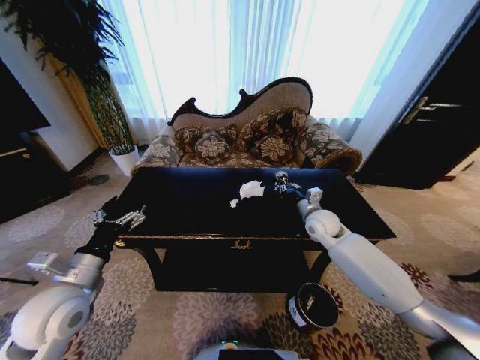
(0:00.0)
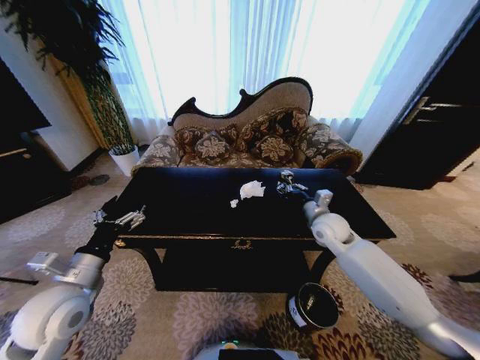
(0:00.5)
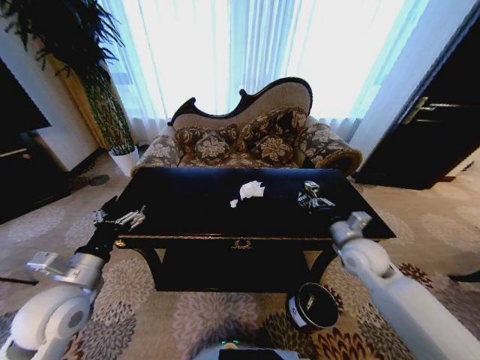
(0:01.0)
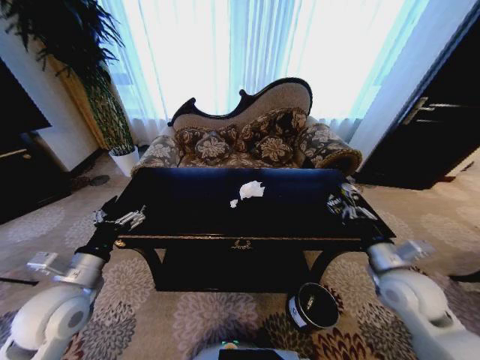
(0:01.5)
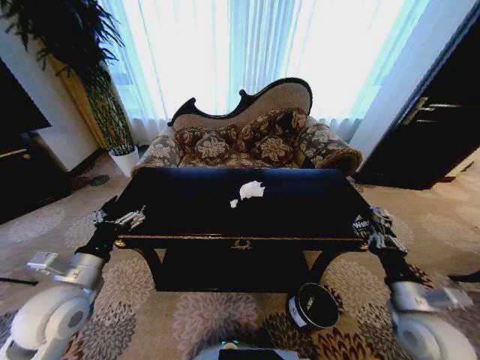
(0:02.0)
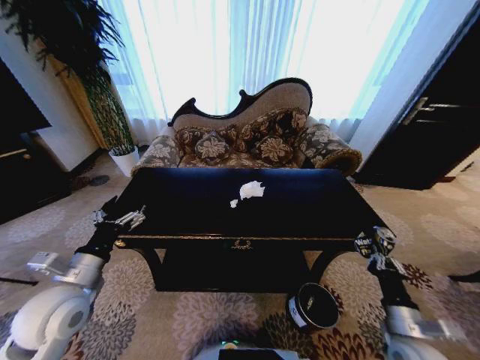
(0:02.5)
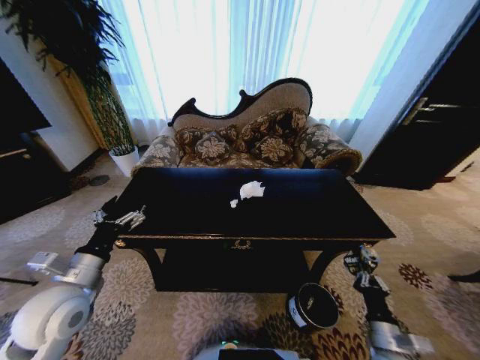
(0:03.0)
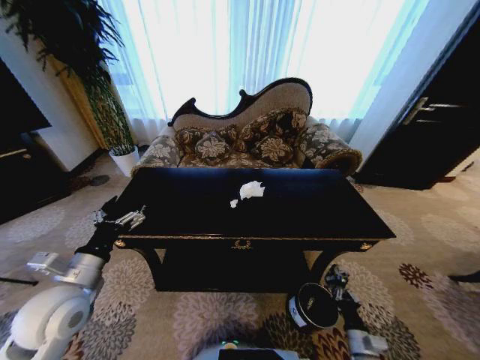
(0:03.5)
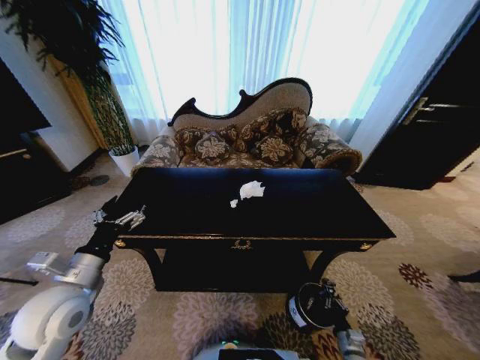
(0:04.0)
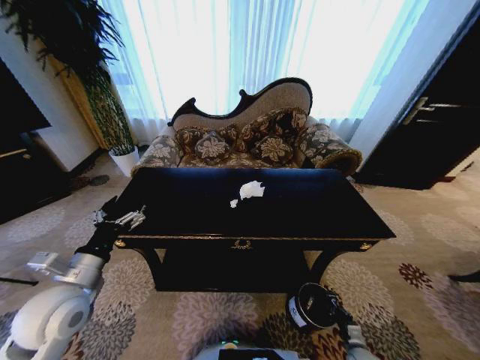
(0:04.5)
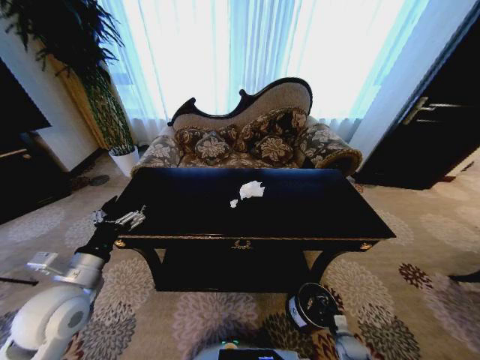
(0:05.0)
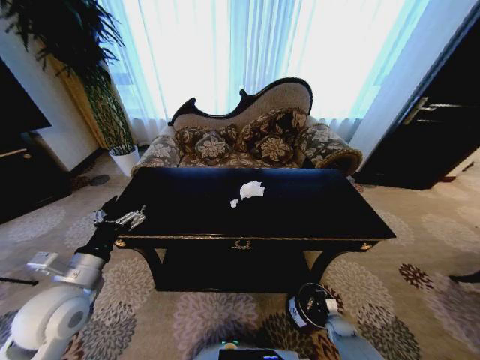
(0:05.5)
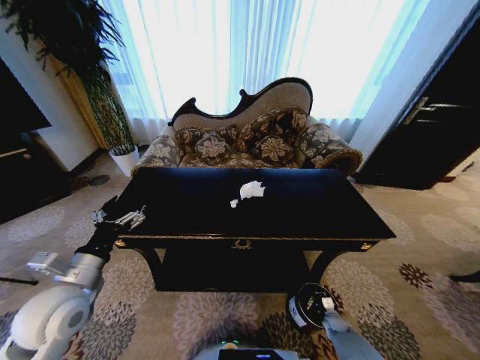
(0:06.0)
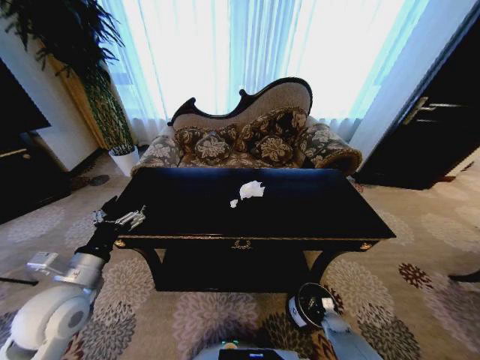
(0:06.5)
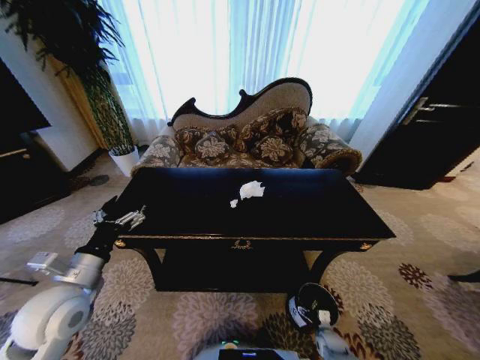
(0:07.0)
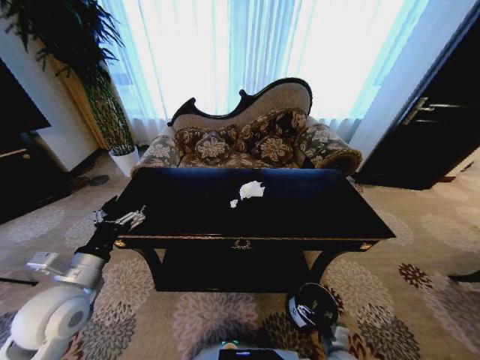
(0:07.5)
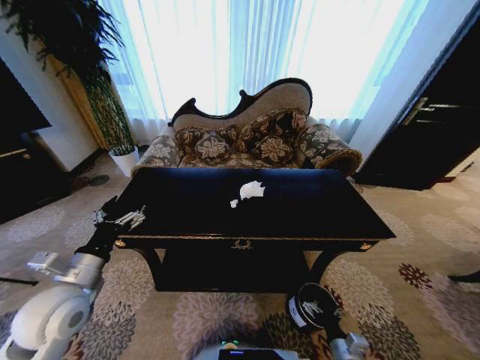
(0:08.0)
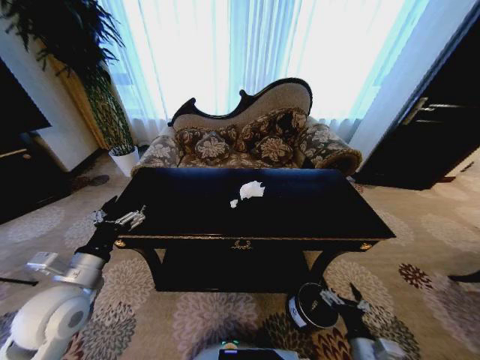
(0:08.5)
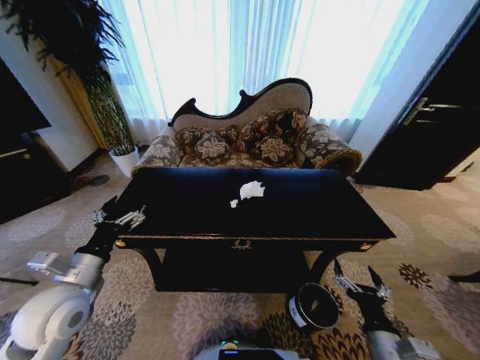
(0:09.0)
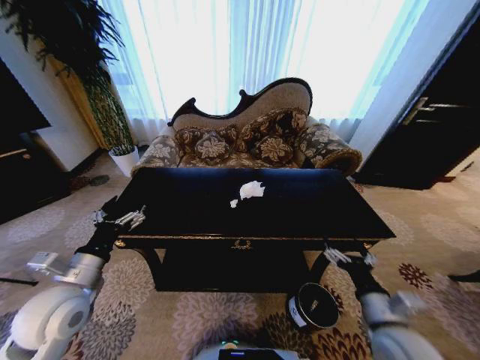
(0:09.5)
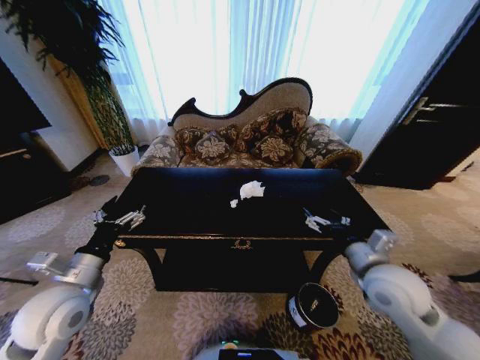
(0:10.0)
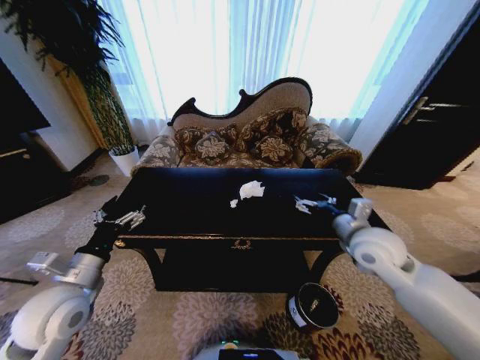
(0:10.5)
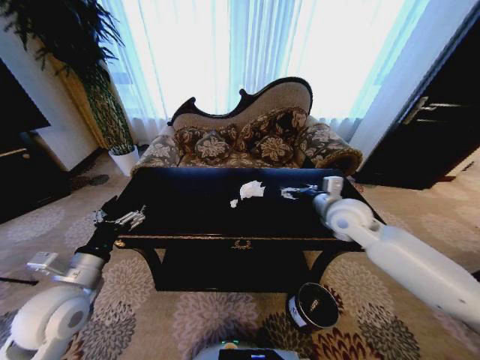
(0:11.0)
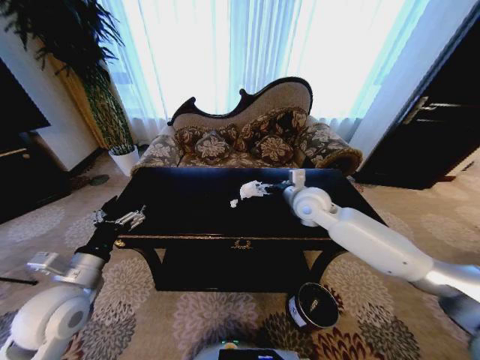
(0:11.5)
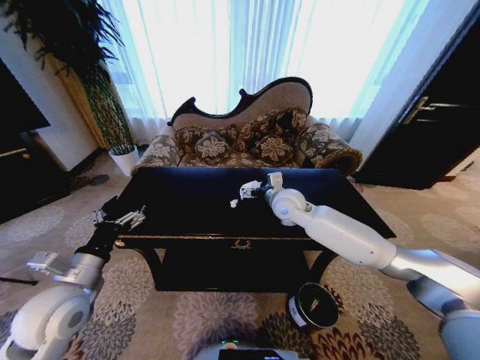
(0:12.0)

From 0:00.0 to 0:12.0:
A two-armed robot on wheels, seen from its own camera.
Task of the whole recording: Move to the front of the table and place the trash on the table into the trash bin.
From 0:00.0 to 0:02.0: The right gripper shifts roughly 30 cm backward.
From 0:02.0 to 0:04.0: The right gripper travels downward by about 30 cm.
From 0:04.0 to 0:06.0: The right gripper travels forward and downward by roughly 15 cm.
From 0:06.0 to 0:08.0: The right gripper is displaced upward, backward and to the left by about 25 cm, and opens up.
From 0:08.0 to 0:10.0: The right gripper goes some 30 cm upward and forward.
From 0:10.0 to 0:12.0: The right gripper travels forward and to the left by about 25 cm.

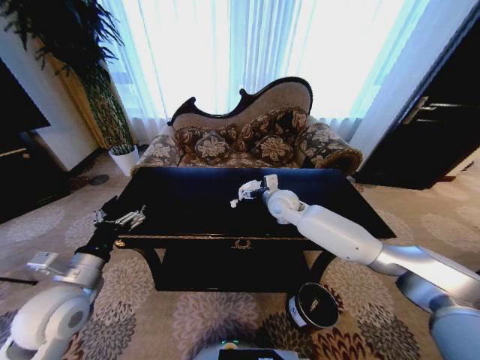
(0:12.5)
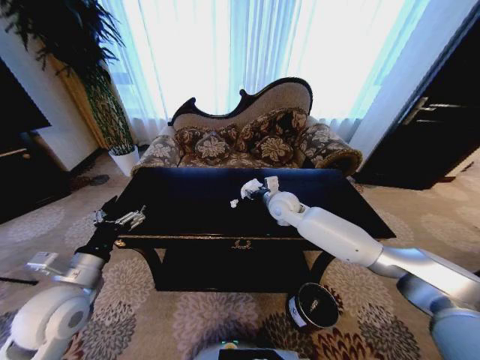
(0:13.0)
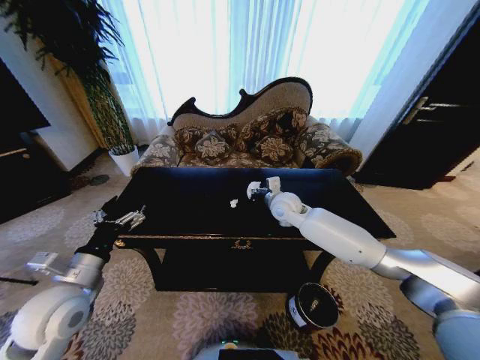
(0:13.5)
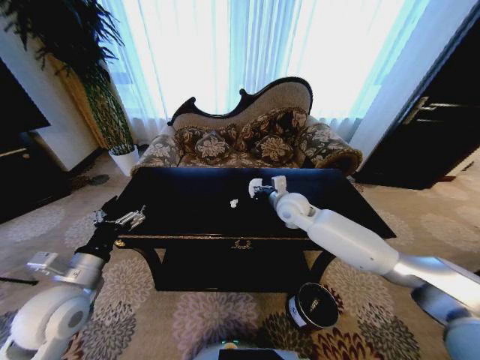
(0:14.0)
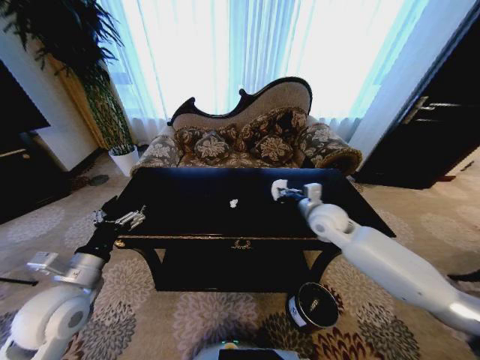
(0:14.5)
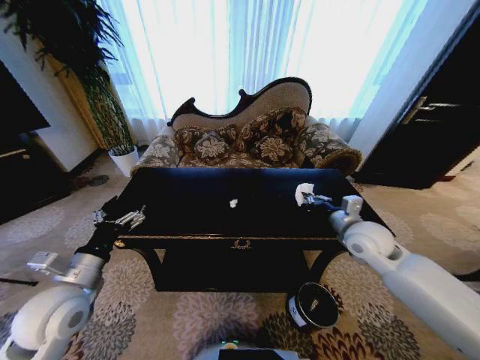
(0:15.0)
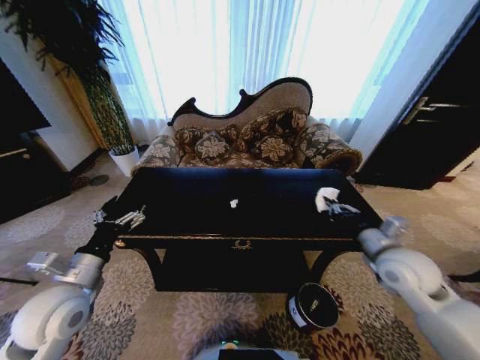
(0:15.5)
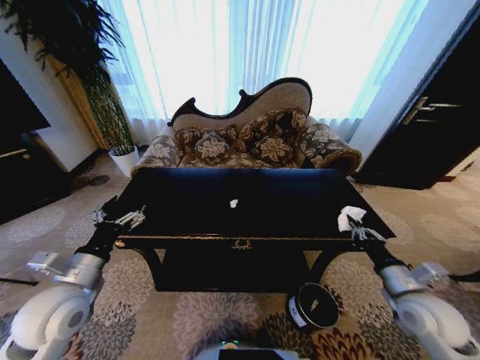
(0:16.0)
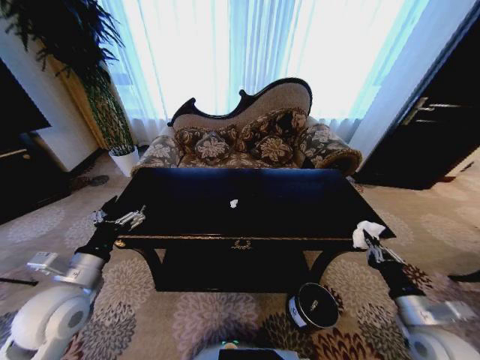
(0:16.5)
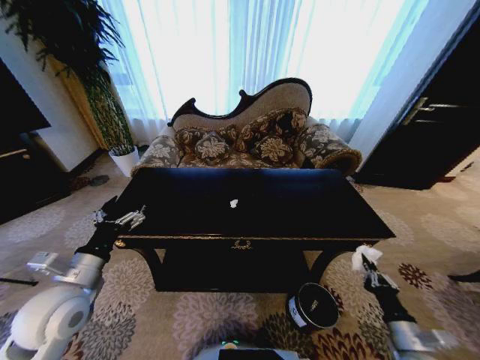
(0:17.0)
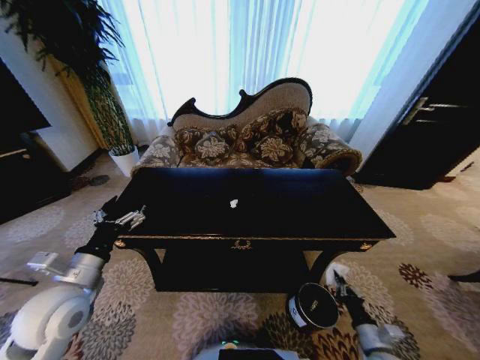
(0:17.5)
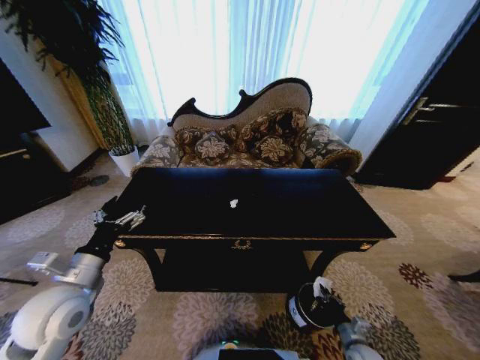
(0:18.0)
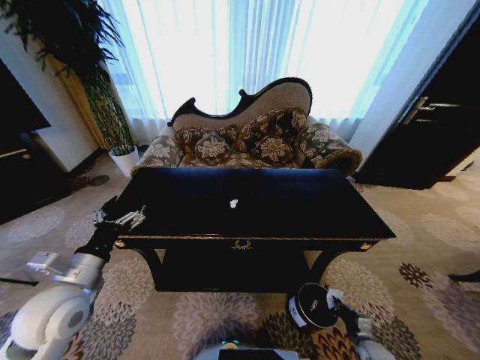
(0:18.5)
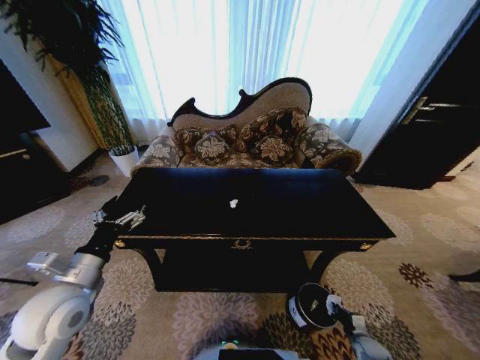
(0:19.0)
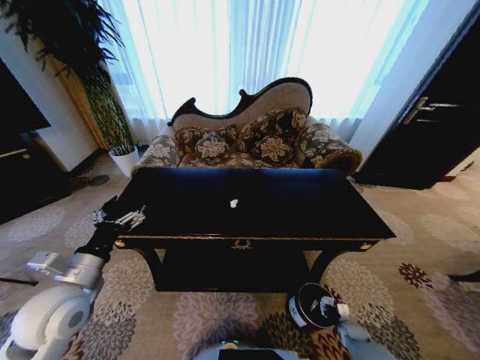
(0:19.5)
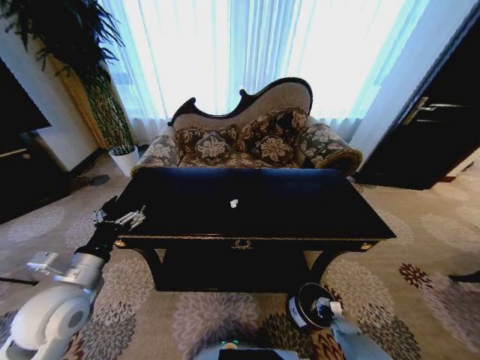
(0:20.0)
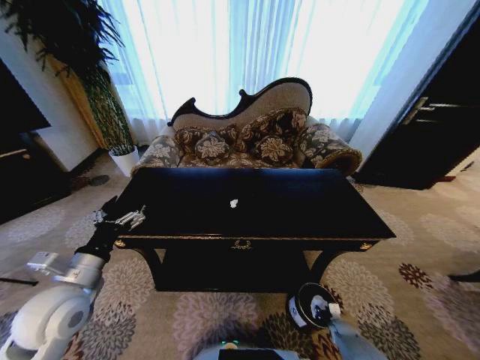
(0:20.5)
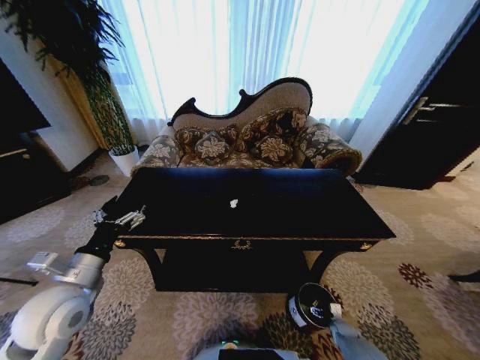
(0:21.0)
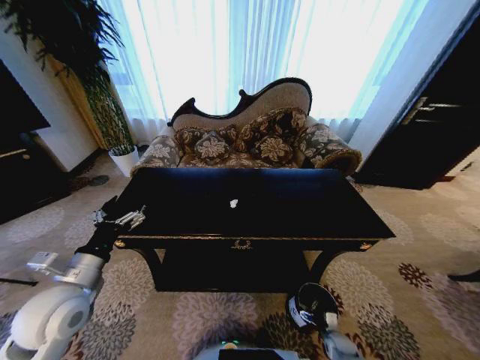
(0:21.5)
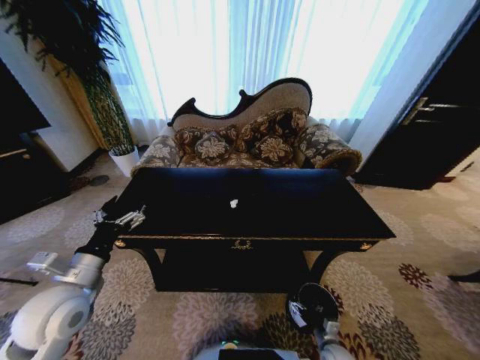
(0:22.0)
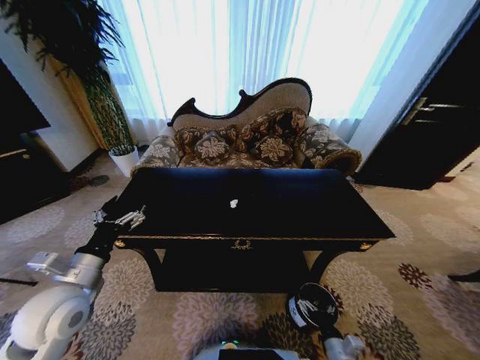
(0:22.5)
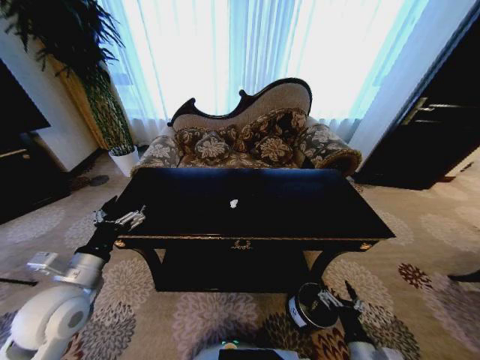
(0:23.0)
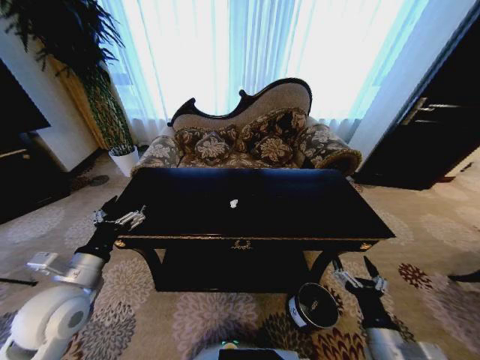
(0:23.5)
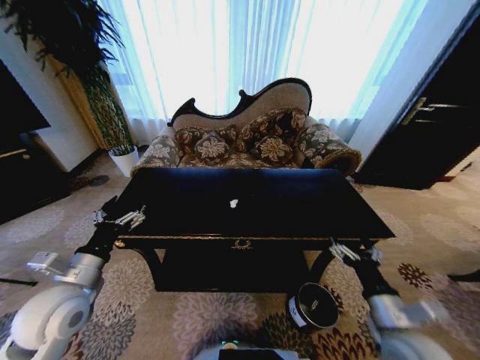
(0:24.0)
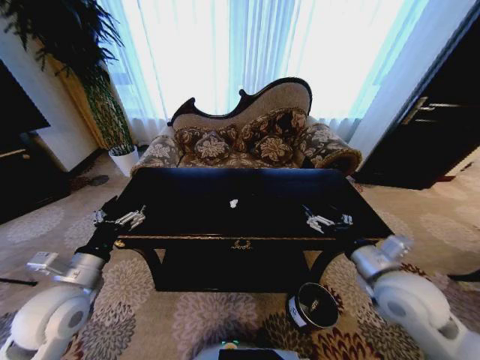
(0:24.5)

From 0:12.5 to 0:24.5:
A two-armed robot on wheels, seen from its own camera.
Task of the whole recording: Move to the front of the table and place the trash on the table into the trash bin.
From 0:12.5 to 0:14.5: The right gripper shifts about 15 cm to the right and backward, and closes.
From 0:14.5 to 0:16.5: The right gripper goes roughly 35 cm backward, to the right and downward.
From 0:16.5 to 0:18.5: The right gripper is displaced downward by some 25 cm.
From 0:18.5 to 0:20.5: The right gripper travels downward and forward by about 10 cm, and opens up.
From 0:20.5 to 0:22.5: The right gripper moves upward, backward and to the left, roughly 25 cm, and opens.
From 0:22.5 to 0:24.5: The right gripper travels upward and forward by approximately 35 cm.

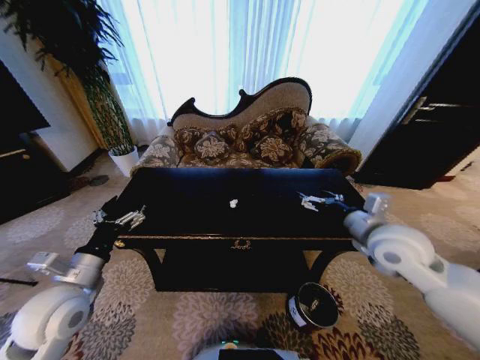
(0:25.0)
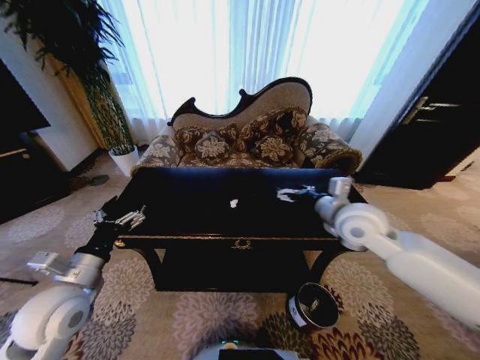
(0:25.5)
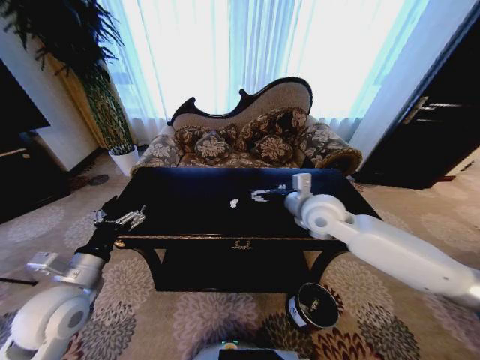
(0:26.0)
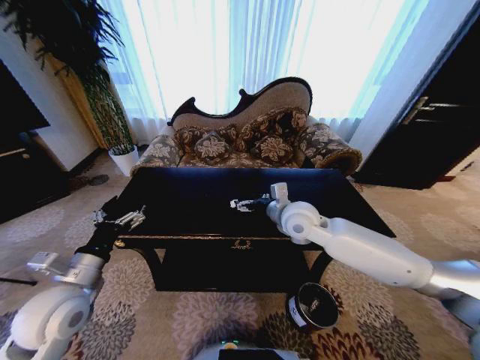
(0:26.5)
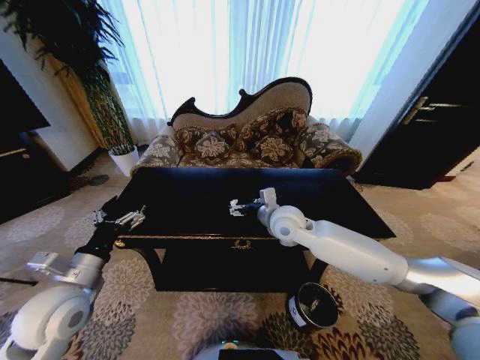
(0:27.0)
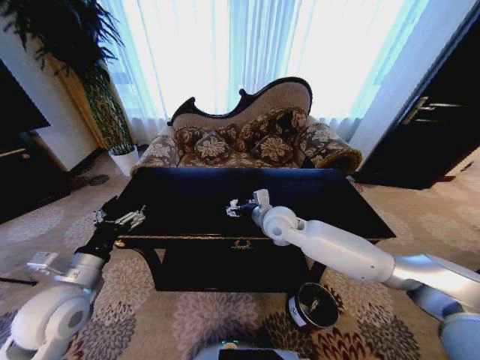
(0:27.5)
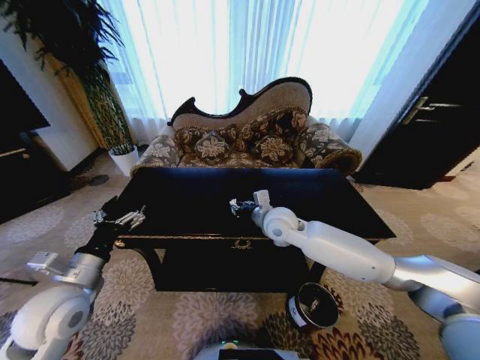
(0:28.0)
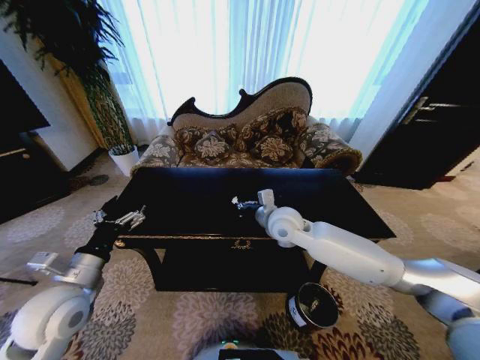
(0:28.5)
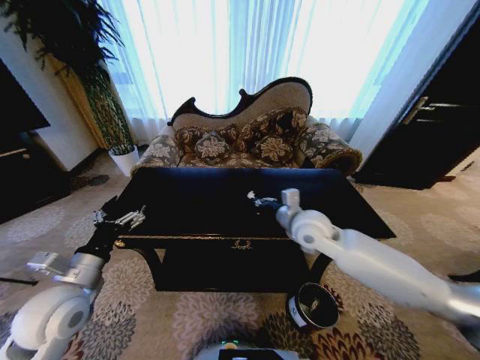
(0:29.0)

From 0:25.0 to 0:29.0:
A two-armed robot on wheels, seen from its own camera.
Task of the whole recording: Move to the front of the table and place the trash on the table into the trash bin.
From 0:25.0 to 0:27.0: The right gripper shifts about 20 cm to the left and forward.
From 0:27.0 to 0:29.0: The right gripper goes approximately 5 cm to the right, and closes.
